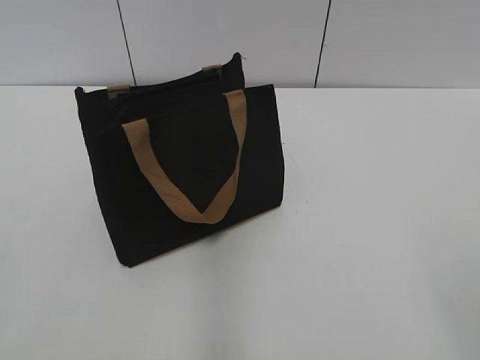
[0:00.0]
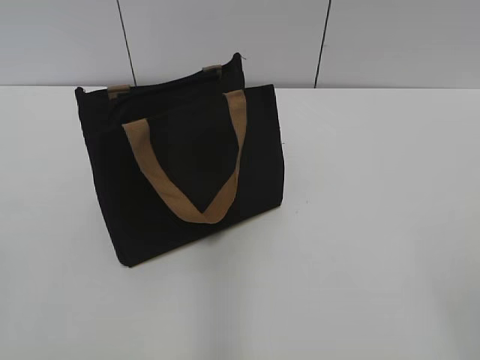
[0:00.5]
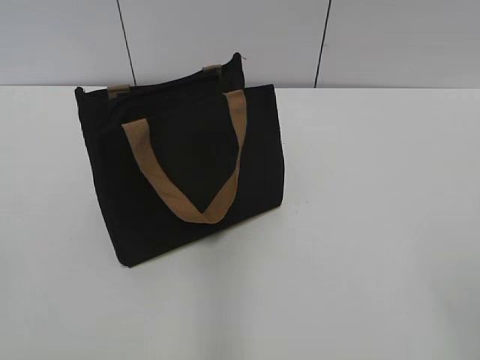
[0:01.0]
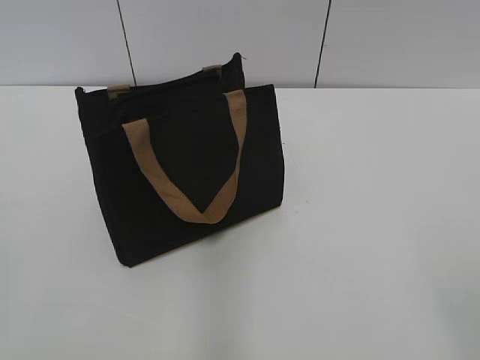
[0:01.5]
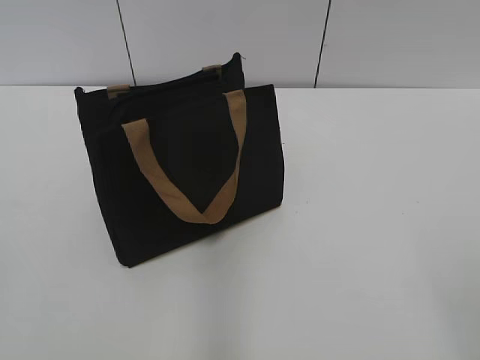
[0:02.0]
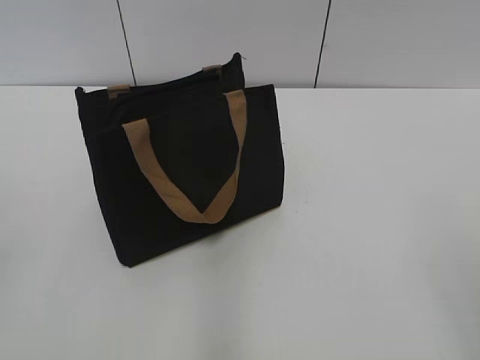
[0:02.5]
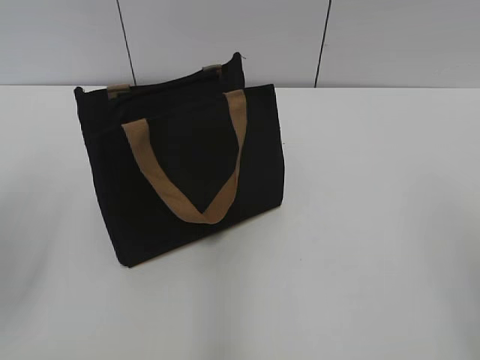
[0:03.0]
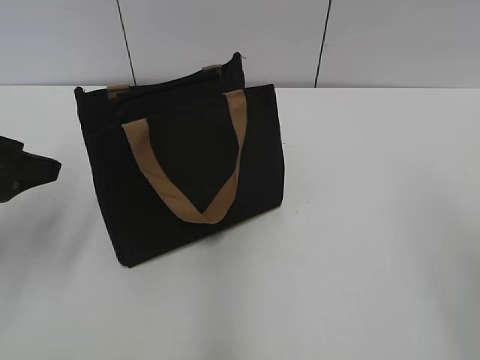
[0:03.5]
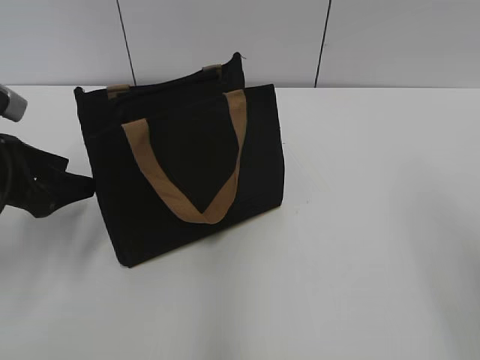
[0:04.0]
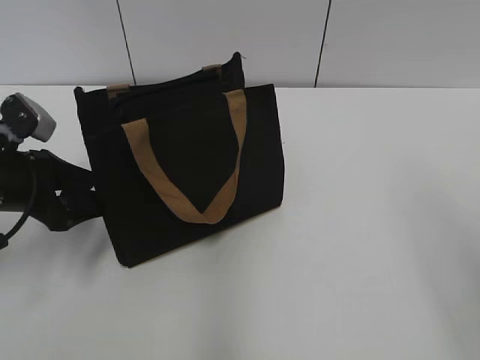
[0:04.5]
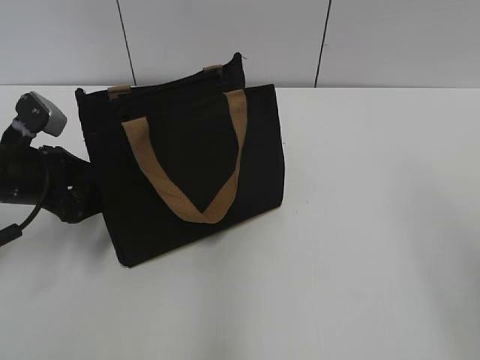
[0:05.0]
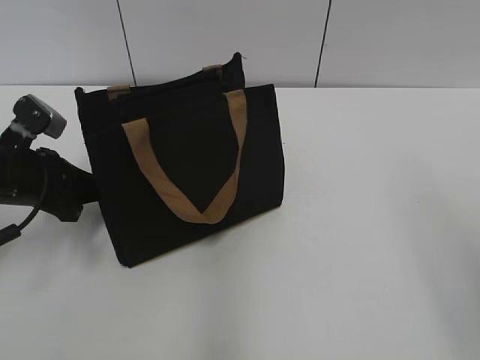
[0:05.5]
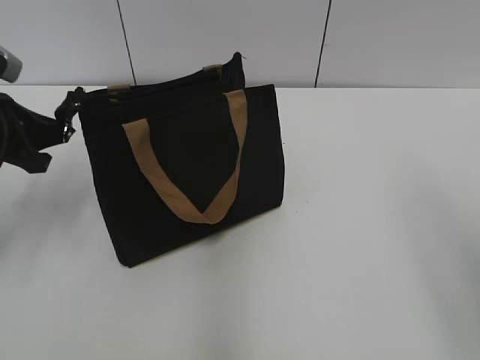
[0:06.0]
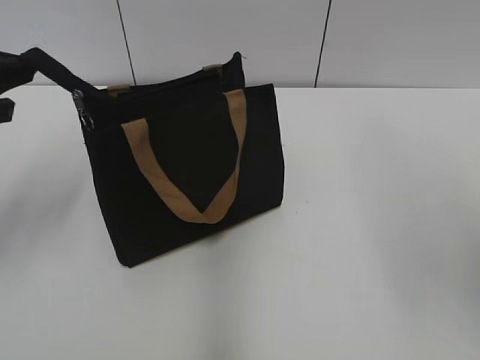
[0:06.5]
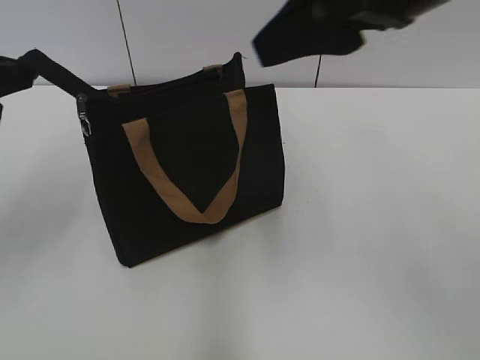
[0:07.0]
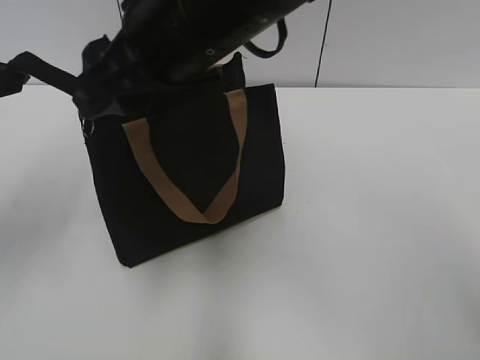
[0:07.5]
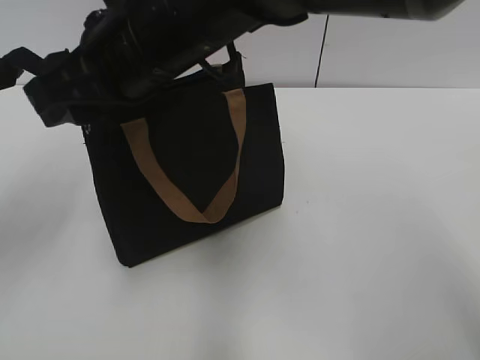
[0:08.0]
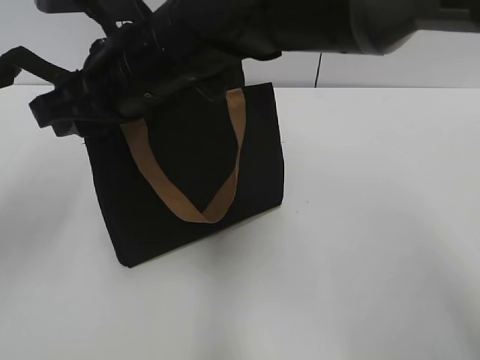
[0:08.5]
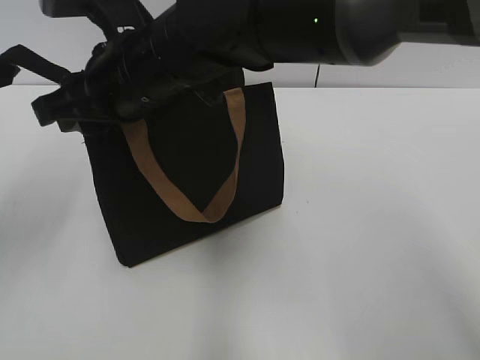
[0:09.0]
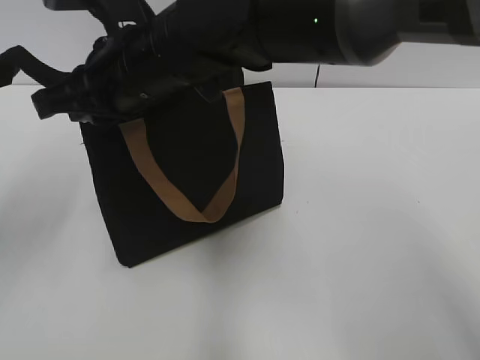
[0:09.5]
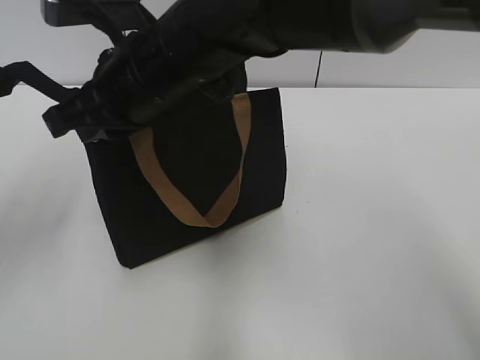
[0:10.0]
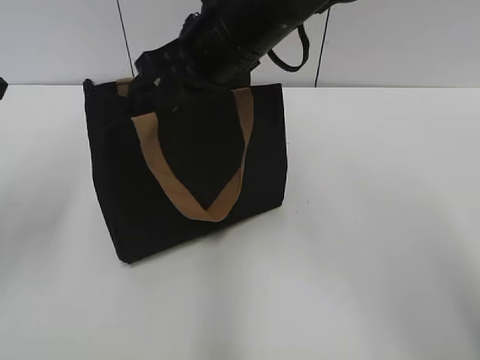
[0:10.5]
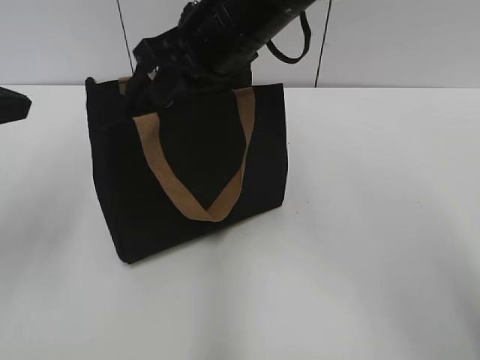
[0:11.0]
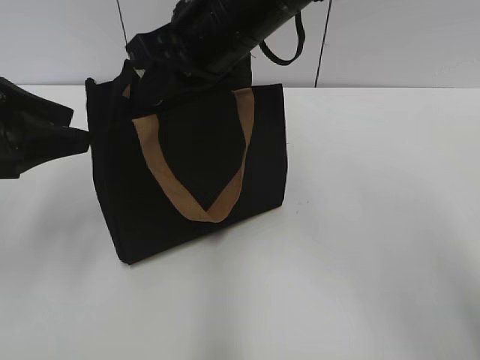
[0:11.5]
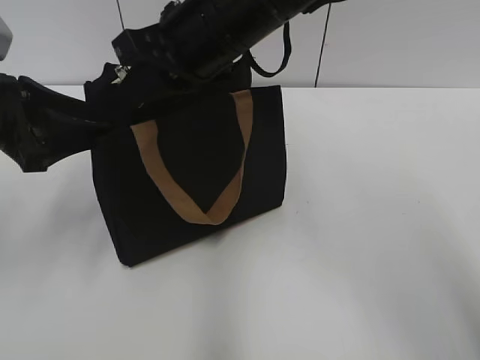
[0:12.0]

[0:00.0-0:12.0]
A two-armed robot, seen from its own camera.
0:02.0 to 0:04.0: The left gripper is displaced forward and downward by some 30 cm.
0:04.0 to 0:06.0: The left gripper closes up.
0:06.0 to 0:08.0: The left gripper is displaced upward and backward by roughly 10 cm; the right gripper is displaced to the left and forward by some 35 cm.
0:08.0 to 0:10.0: The right gripper closes.
0:10.0 to 0:12.0: The left gripper moves downward, some 5 cm, and opens its fingers. Meanwhile the right gripper is displaced to the right by about 5 cm.

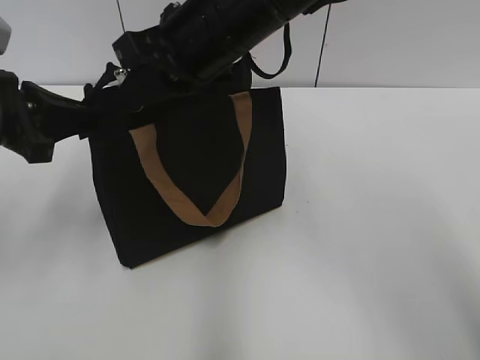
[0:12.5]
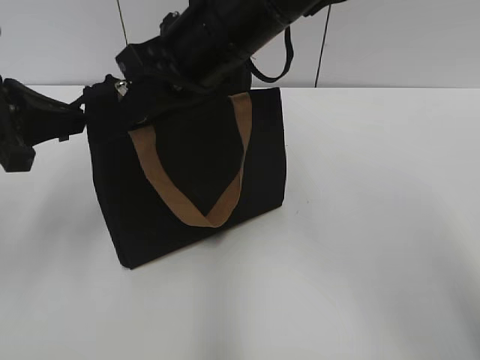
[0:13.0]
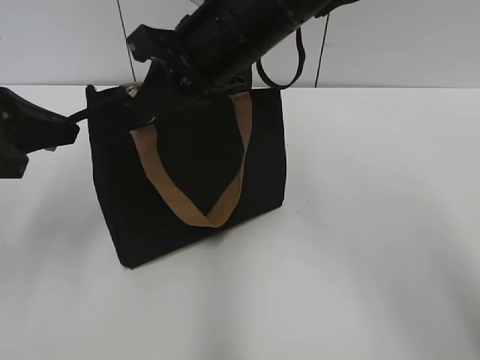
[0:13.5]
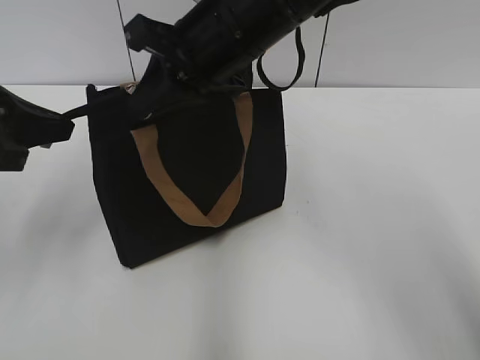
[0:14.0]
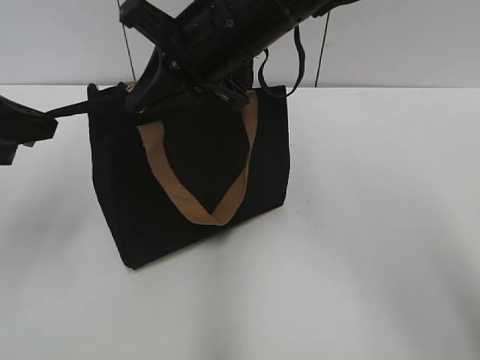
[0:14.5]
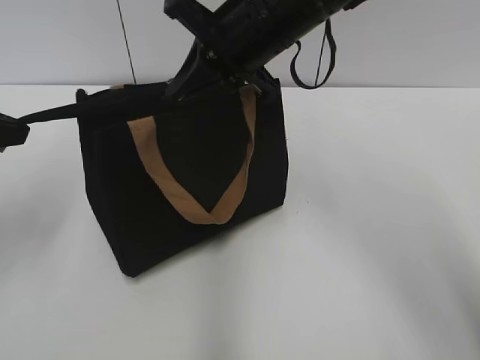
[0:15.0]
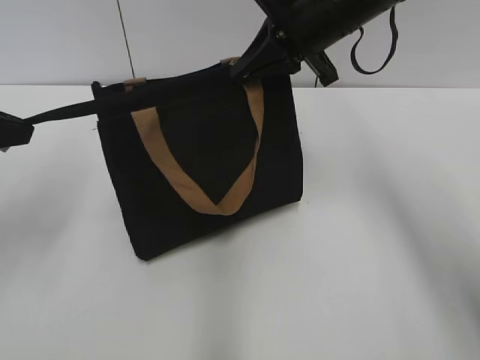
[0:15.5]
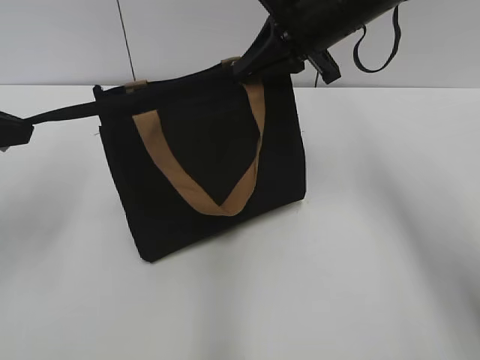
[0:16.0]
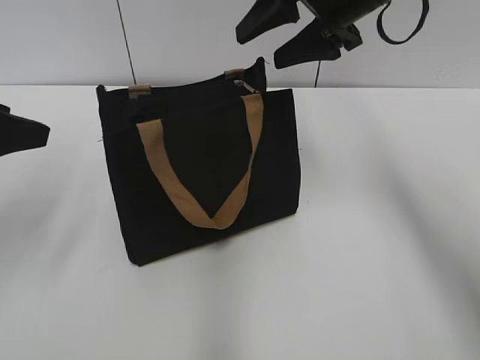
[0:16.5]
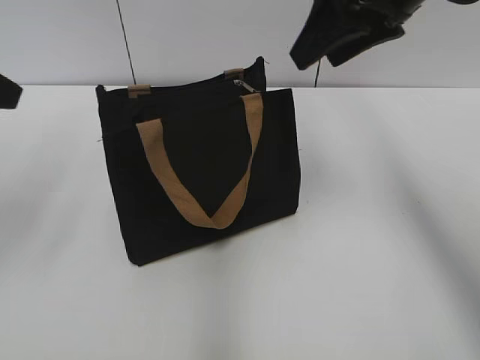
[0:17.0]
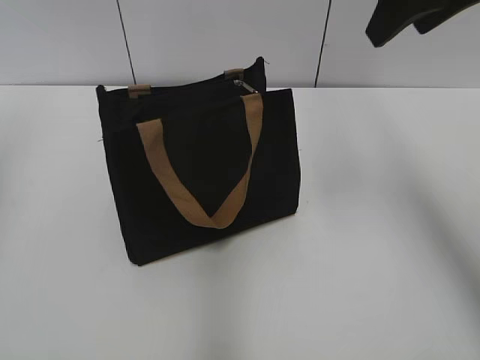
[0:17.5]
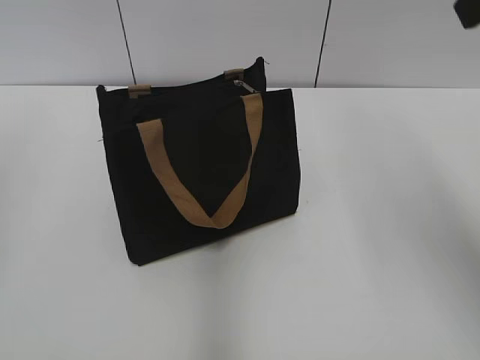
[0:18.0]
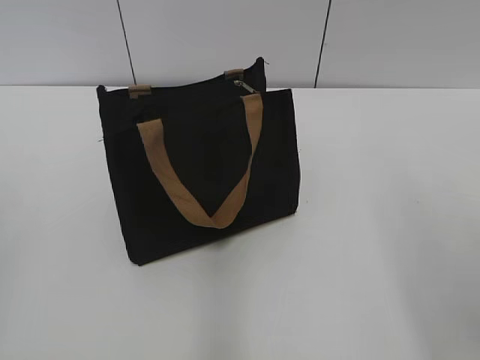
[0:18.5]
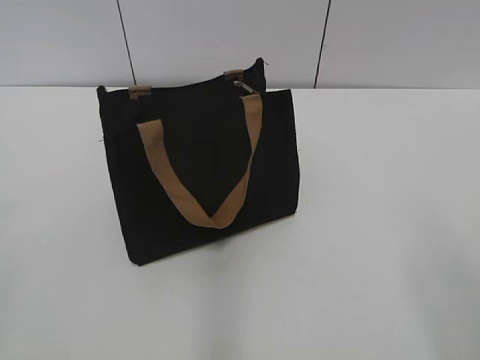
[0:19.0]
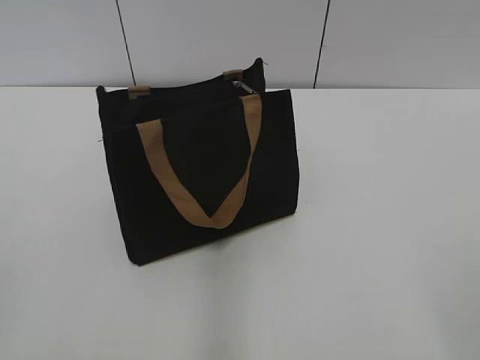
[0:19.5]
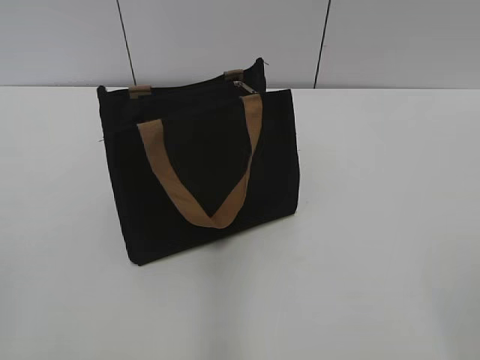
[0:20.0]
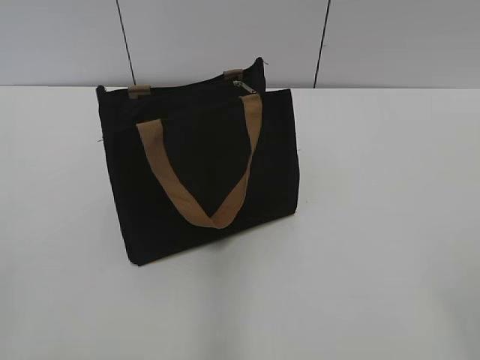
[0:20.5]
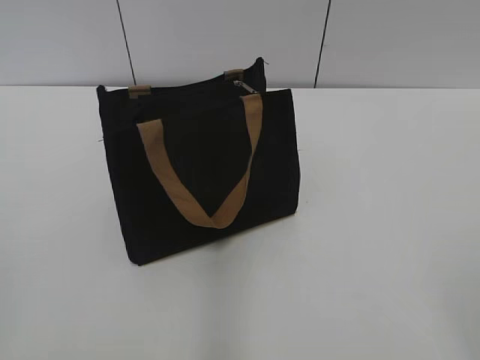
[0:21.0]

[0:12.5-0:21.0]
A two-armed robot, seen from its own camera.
Step, 0:12.5 to 0:16.0: Zip up the bag with your right hand.
0:14.5 to 0:16.5: The left gripper opens. The right gripper is displaced to the right and forward by roughly 15 cm, and opens up.
0:16.5 to 0:19.0: The right gripper travels backward and to the right by about 35 cm; the left gripper shifts about 25 cm backward.

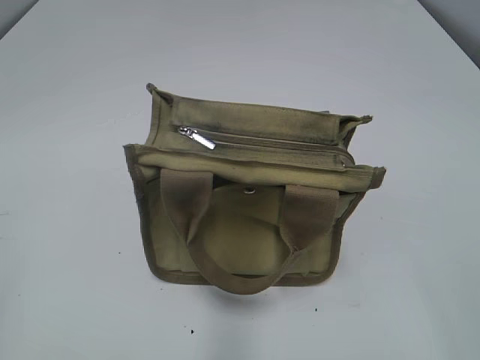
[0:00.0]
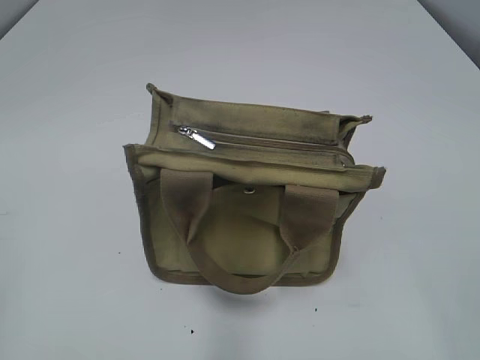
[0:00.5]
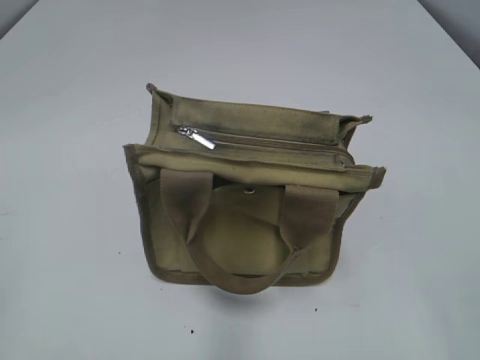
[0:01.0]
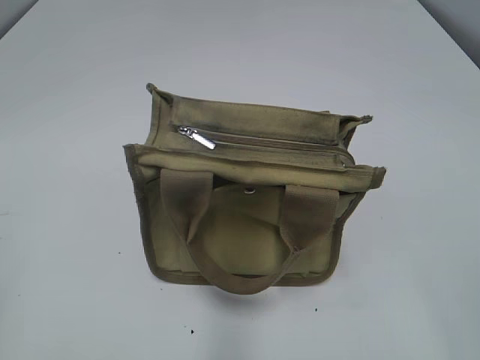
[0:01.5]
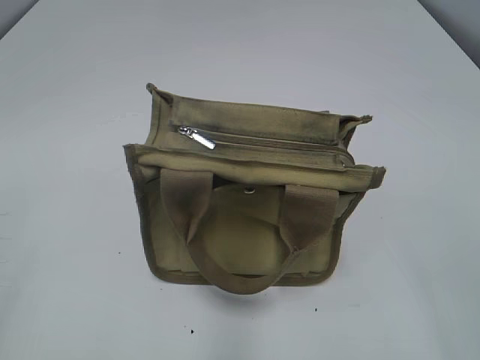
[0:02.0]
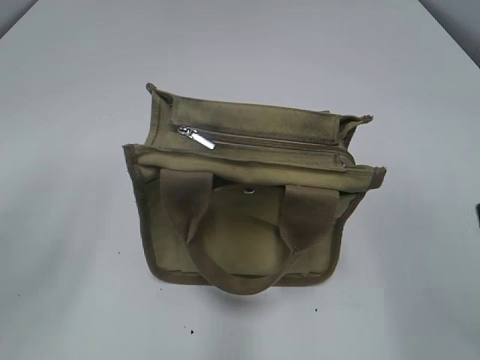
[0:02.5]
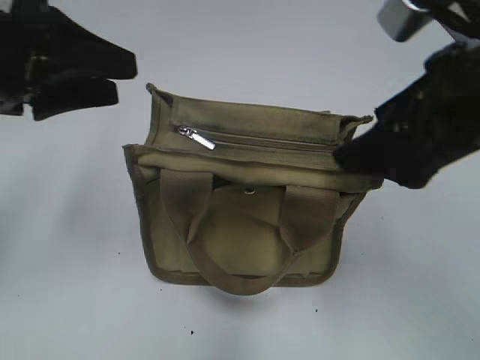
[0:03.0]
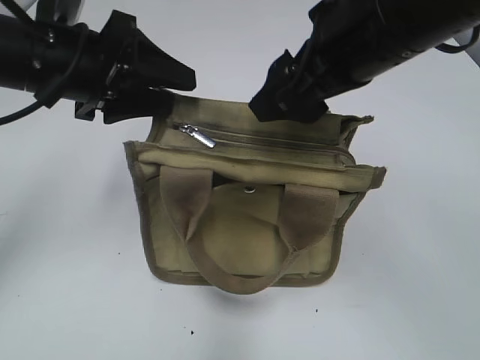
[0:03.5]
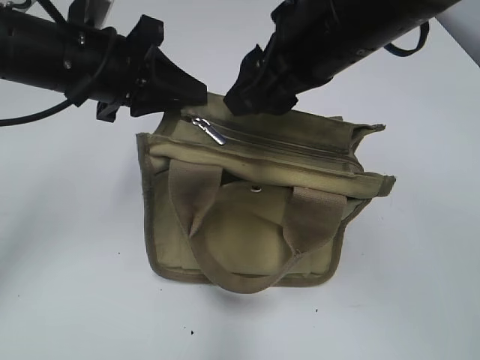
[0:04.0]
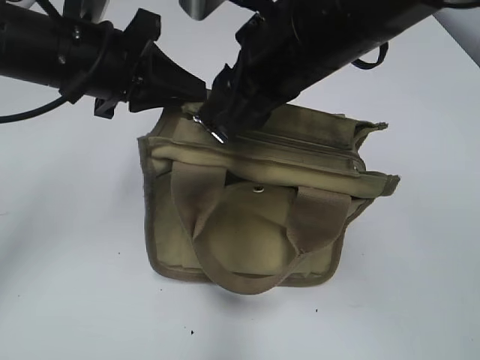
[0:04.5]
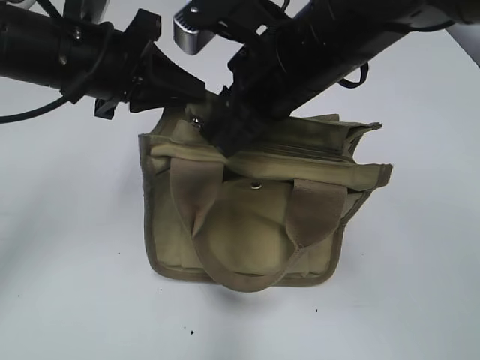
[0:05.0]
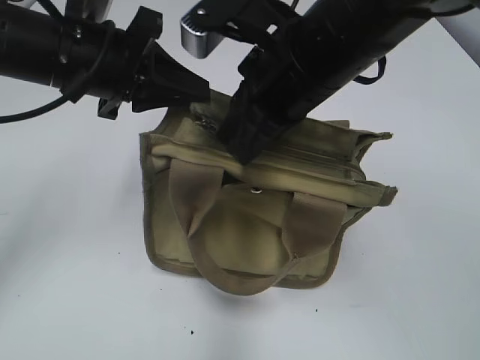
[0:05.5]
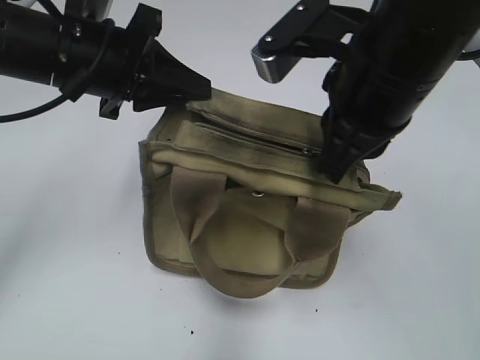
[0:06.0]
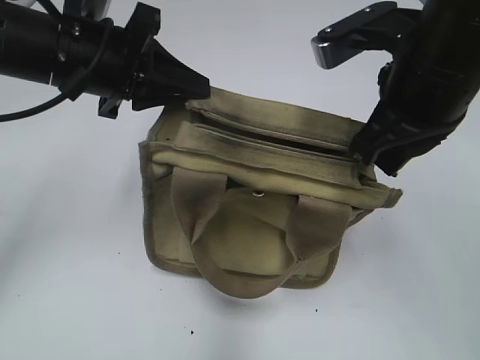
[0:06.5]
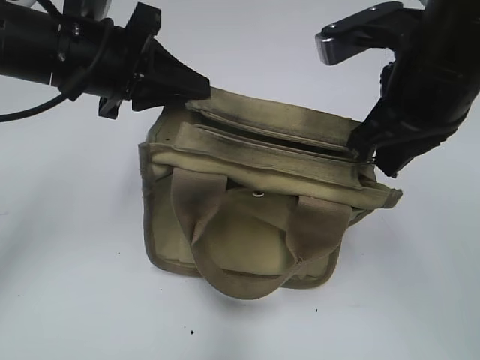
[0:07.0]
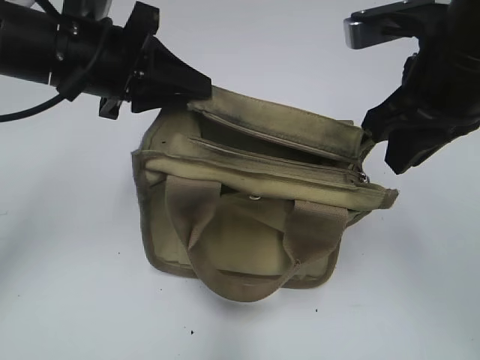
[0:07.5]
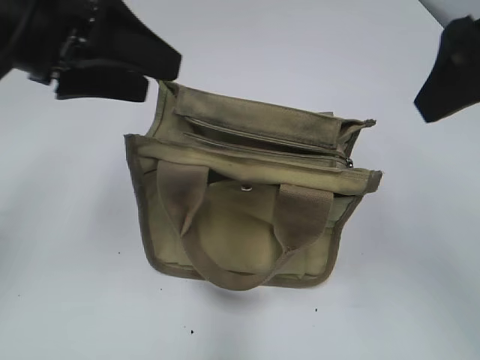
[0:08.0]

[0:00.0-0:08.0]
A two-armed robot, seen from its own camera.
Step, 0:00.0 to 0:07.0: Pull open the zipper with your right hand.
0:02.0 to 0:04.0: The left gripper shifts about 35 cm forward and to the right, and closes. Meanwhile the right gripper is displaced forward and to the left by roughly 35 cm.
0:04.0 to 0:06.0: The right gripper closes up.
0:06.0 to 0:08.0: The left gripper moves upward, some 5 cm, and opens up; the right gripper travels to the right and upward by some 10 cm, and opens its fingers.
